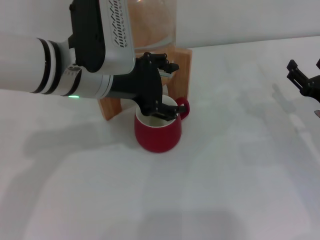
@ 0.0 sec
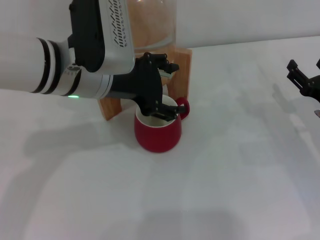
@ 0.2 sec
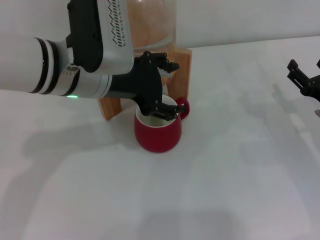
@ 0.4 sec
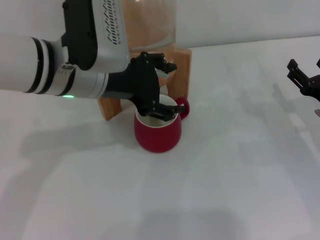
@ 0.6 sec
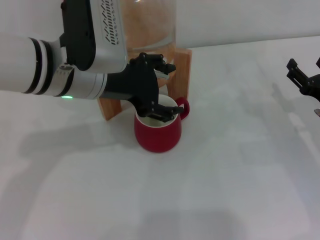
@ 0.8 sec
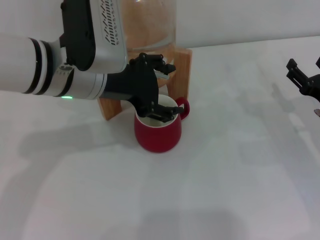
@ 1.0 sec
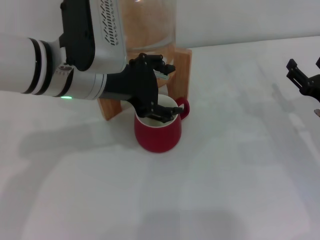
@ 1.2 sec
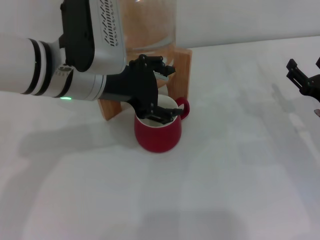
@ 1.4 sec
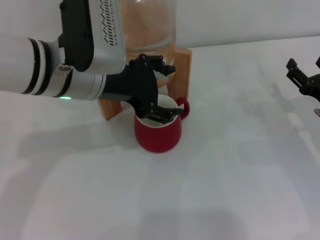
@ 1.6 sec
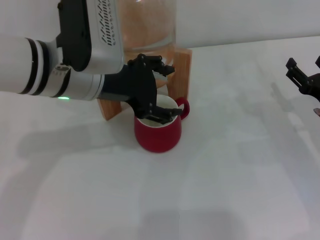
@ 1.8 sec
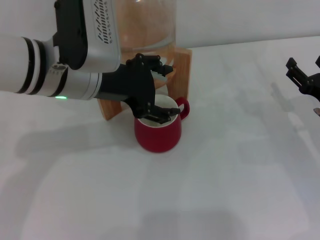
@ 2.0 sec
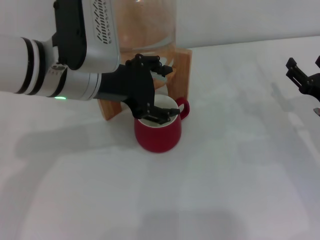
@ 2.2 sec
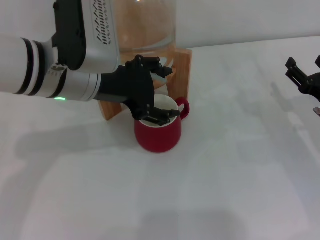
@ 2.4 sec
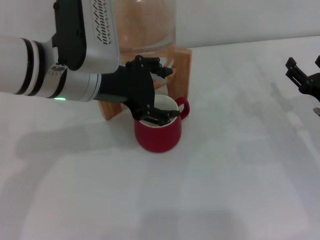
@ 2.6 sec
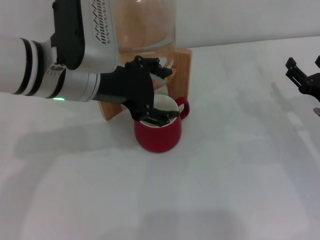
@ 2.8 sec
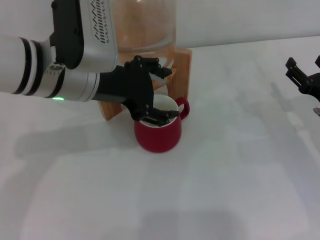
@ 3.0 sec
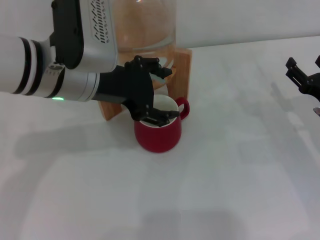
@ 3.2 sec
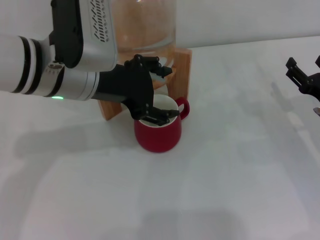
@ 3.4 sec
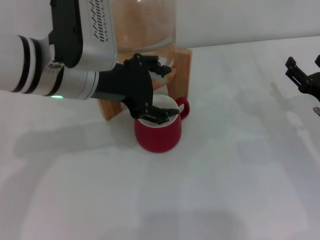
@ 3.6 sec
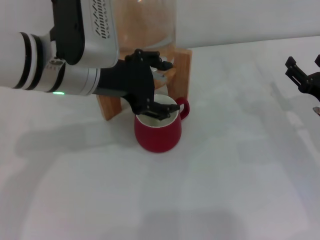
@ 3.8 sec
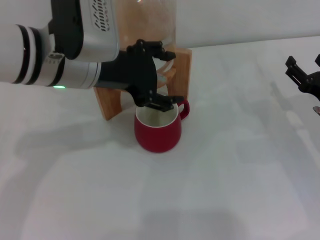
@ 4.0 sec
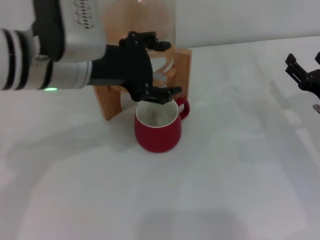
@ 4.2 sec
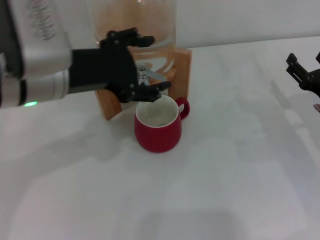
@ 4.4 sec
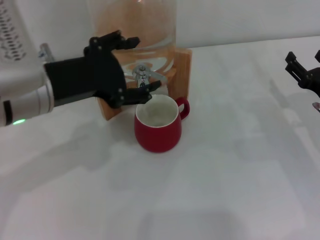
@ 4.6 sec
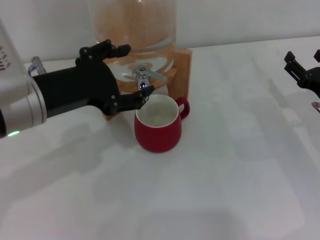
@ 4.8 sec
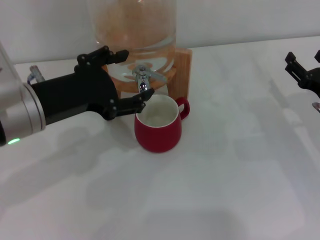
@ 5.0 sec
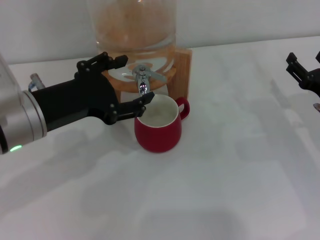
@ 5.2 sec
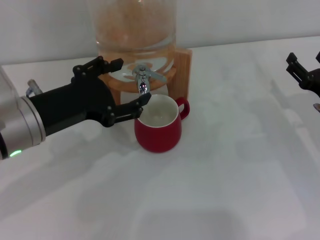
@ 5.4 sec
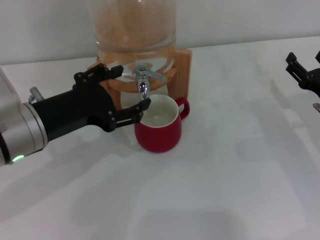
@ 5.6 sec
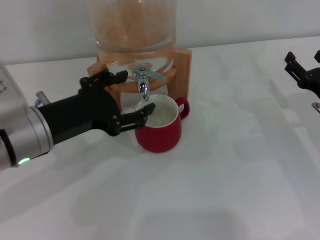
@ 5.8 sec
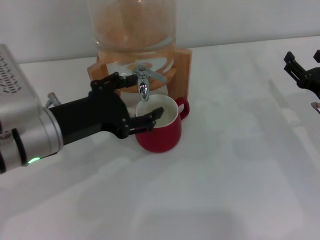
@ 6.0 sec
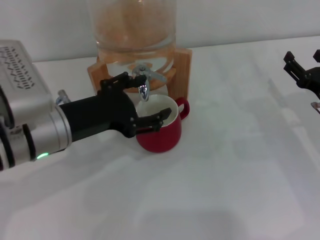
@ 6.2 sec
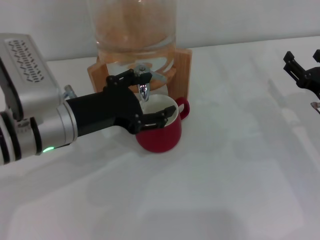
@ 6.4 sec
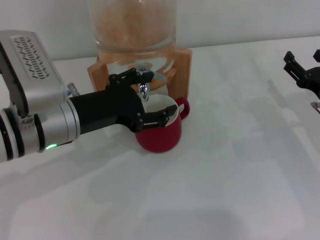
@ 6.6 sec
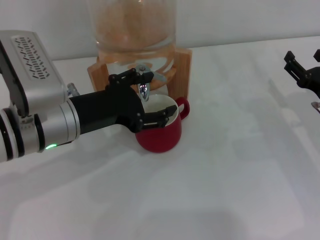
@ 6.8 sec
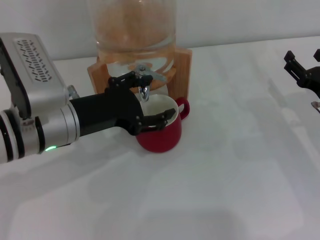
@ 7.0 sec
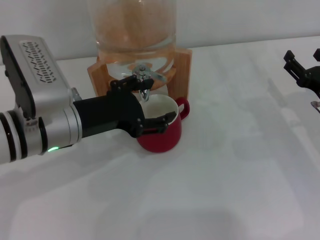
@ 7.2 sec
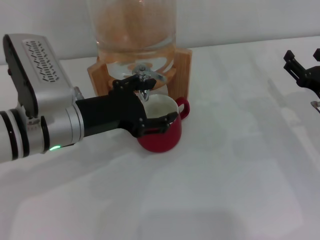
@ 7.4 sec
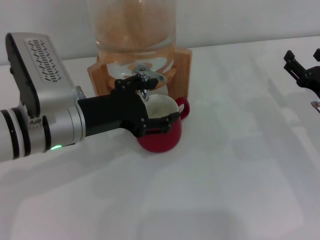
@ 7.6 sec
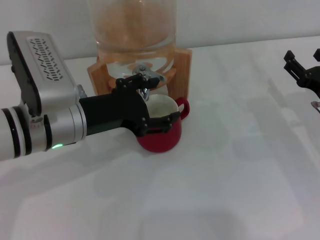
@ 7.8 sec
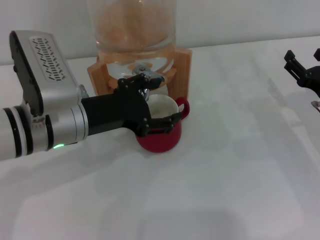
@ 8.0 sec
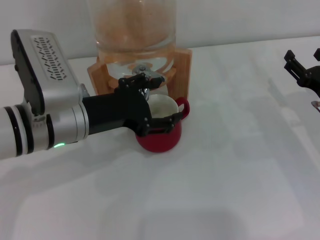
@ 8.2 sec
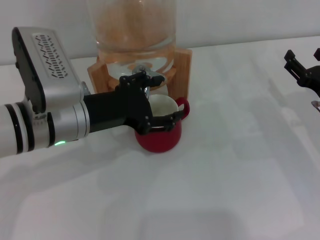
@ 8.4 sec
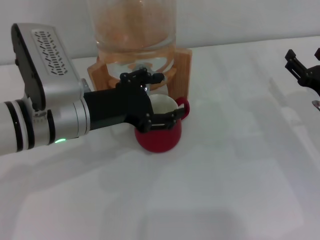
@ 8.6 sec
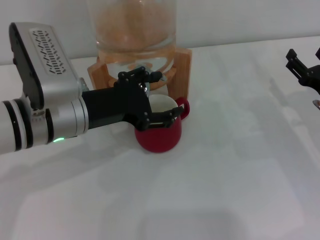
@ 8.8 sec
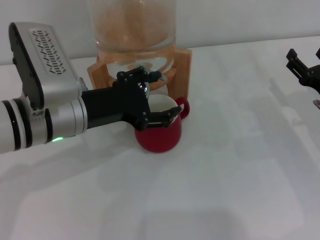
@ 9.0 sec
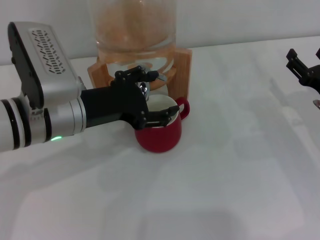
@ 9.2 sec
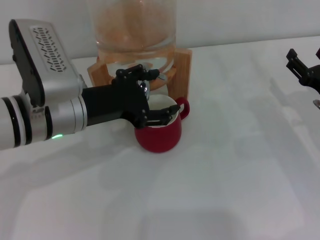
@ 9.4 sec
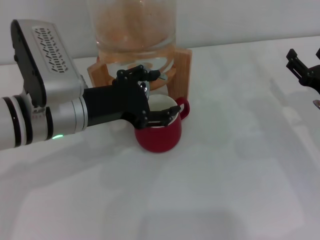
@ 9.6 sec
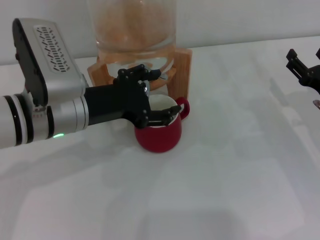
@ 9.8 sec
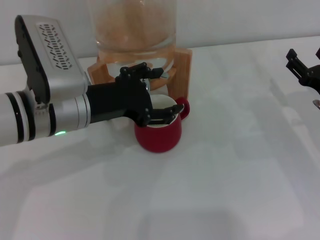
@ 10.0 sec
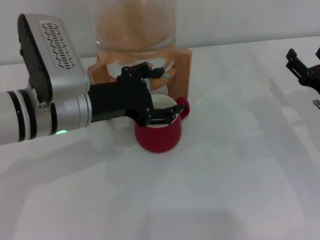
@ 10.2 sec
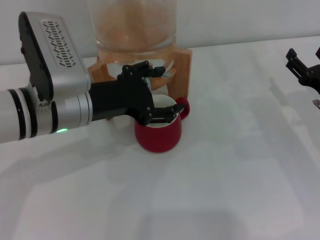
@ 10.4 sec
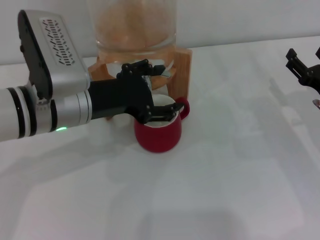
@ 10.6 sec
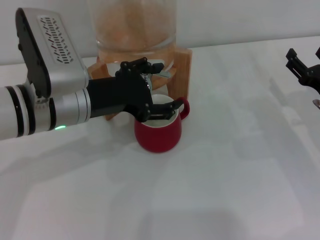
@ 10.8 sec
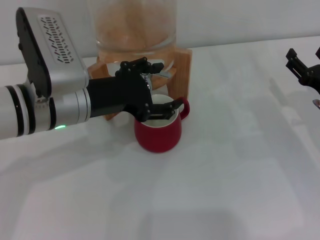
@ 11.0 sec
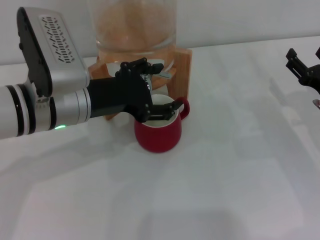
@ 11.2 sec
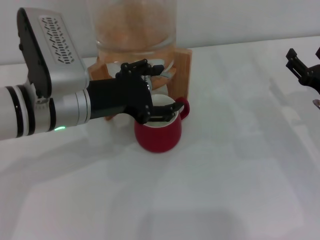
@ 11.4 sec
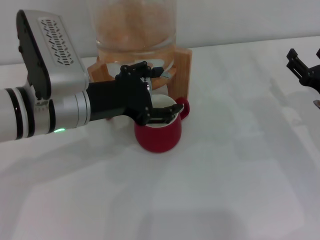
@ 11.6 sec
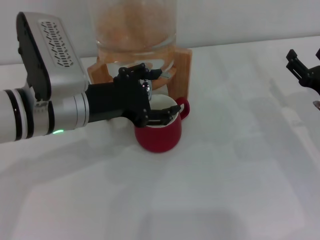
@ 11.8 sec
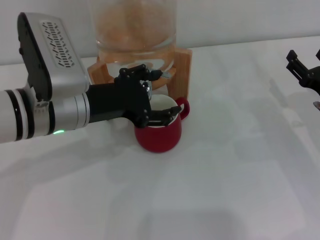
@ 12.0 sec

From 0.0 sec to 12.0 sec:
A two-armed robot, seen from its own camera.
Task of the whole recording: the right gripper pick up the red cup and place it horizontally under the faucet, the left gripper turn on the faucet to fill the cup, and then turn off the faucet.
Step, from 0.0 sec to 3.8 sec: Open the dispenser valve and fill the cup with water with the left gripper.
From 0.0 sec to 1.6 sec: Neither gripper changes place.
From 1.6 sec to 3.0 sec: The two grippers keep their place.
From 3.0 sec to 4.4 sec: The grippers move only a little.
From 4.4 sec to 6.0 sec: The left gripper is displaced downward by some 5 cm.
From 6.0 sec to 7.6 sec: The grippers move only a little.
From 7.6 sec to 9.0 sec: Both grippers stay put.
From 9.0 sec to 10.4 sec: Both grippers stay put.
From 10.4 sec to 12.0 sec: The two grippers keep their place.

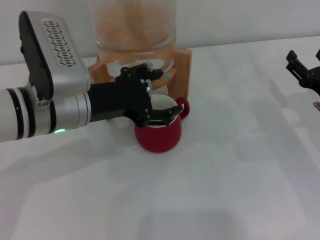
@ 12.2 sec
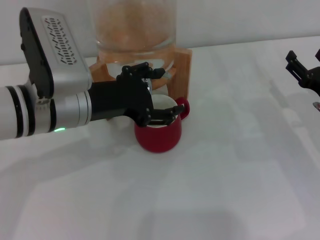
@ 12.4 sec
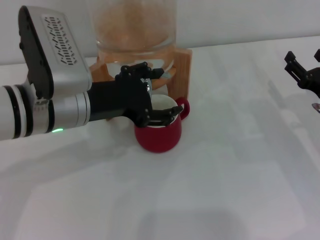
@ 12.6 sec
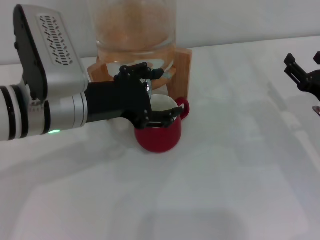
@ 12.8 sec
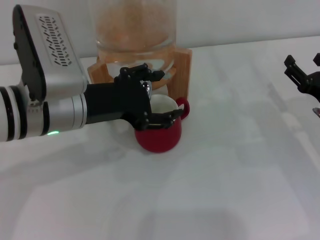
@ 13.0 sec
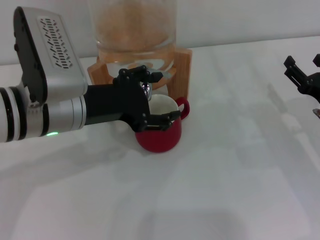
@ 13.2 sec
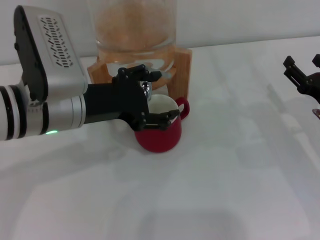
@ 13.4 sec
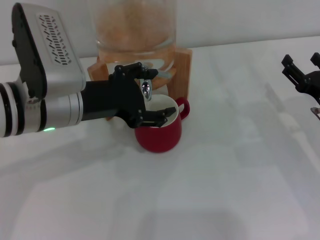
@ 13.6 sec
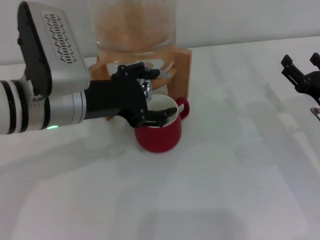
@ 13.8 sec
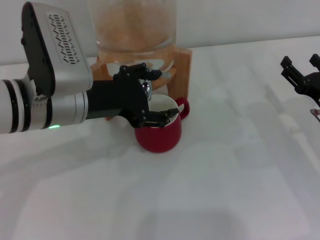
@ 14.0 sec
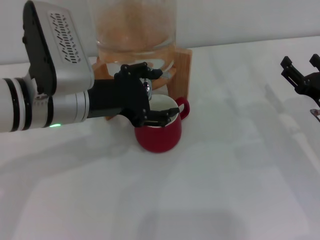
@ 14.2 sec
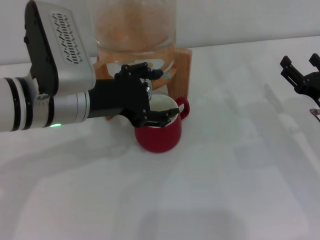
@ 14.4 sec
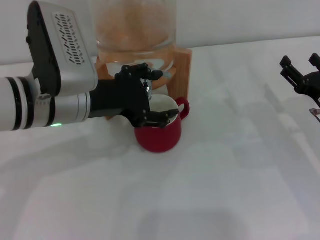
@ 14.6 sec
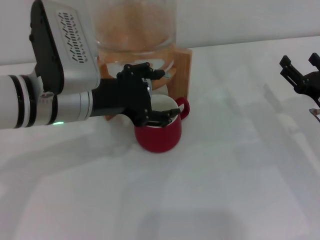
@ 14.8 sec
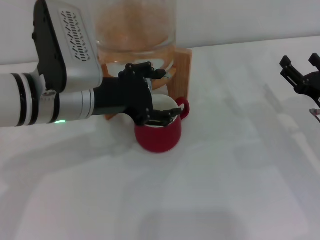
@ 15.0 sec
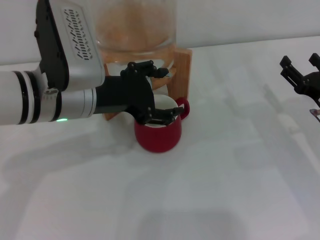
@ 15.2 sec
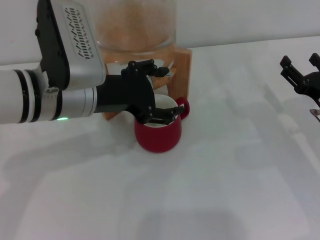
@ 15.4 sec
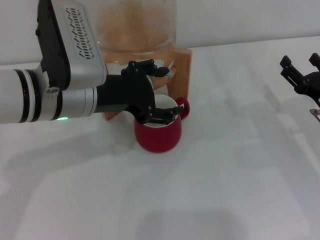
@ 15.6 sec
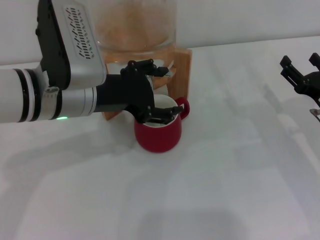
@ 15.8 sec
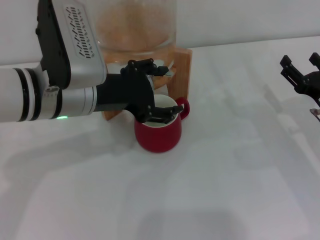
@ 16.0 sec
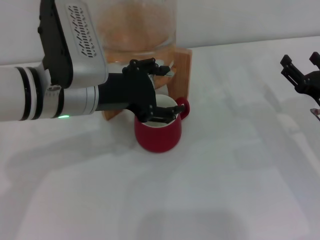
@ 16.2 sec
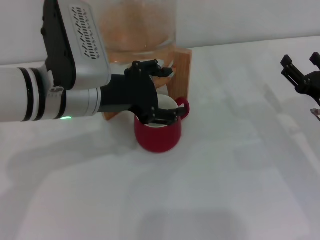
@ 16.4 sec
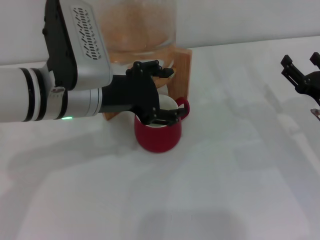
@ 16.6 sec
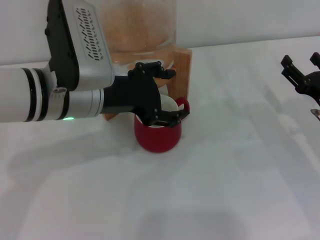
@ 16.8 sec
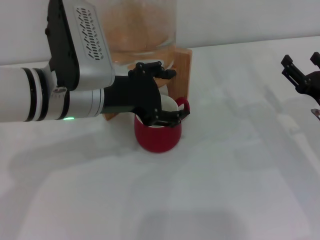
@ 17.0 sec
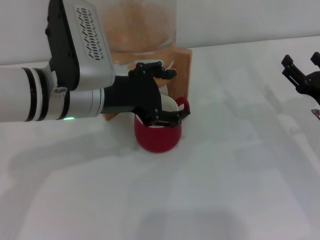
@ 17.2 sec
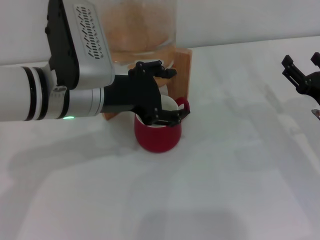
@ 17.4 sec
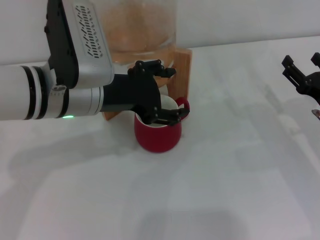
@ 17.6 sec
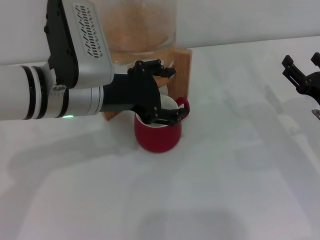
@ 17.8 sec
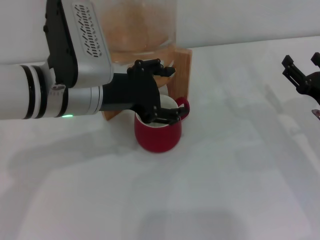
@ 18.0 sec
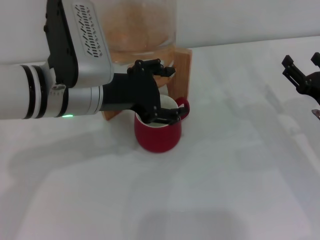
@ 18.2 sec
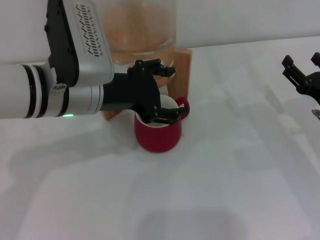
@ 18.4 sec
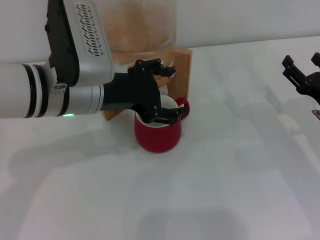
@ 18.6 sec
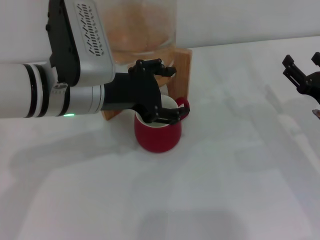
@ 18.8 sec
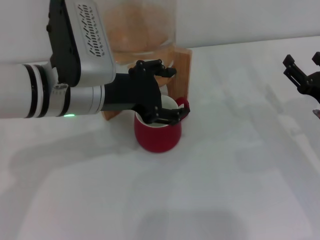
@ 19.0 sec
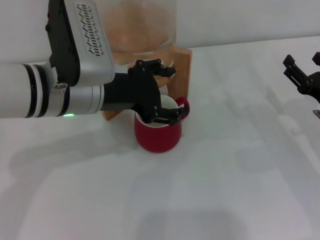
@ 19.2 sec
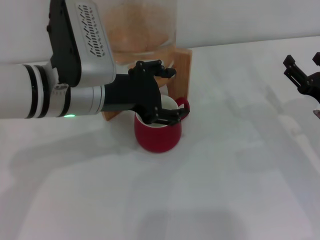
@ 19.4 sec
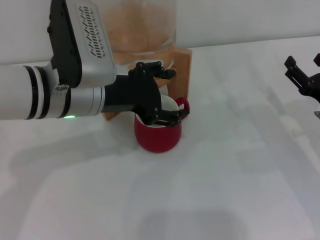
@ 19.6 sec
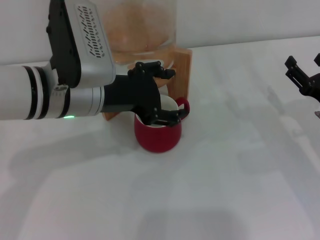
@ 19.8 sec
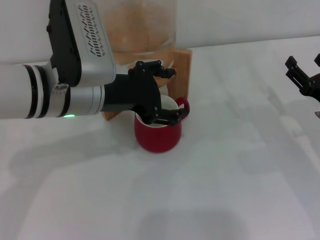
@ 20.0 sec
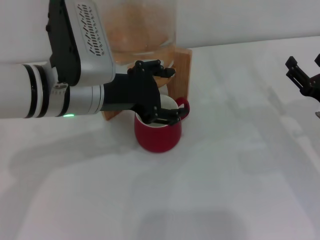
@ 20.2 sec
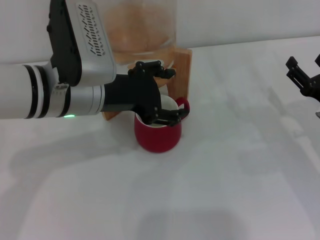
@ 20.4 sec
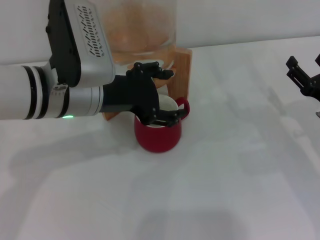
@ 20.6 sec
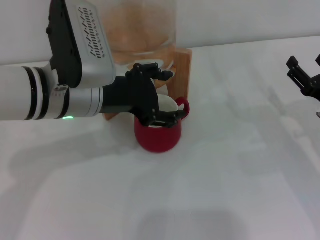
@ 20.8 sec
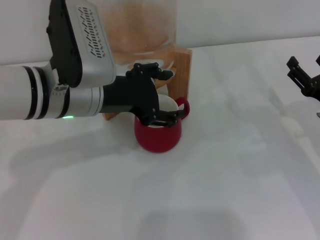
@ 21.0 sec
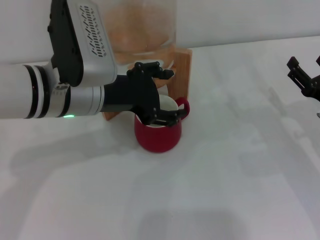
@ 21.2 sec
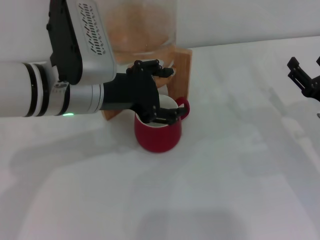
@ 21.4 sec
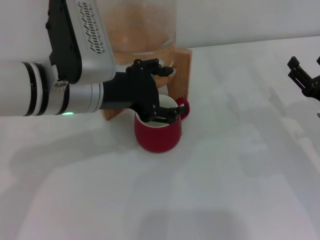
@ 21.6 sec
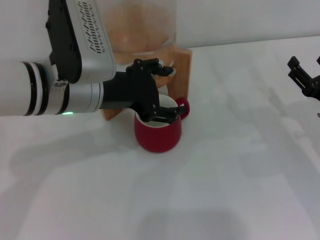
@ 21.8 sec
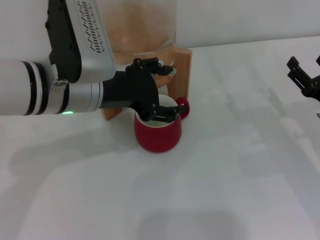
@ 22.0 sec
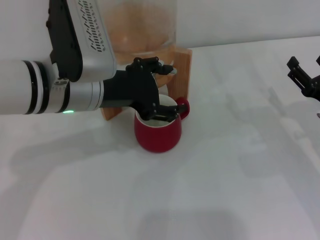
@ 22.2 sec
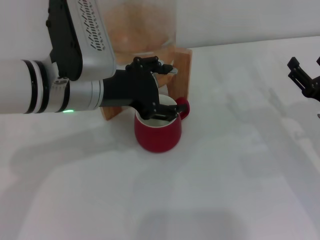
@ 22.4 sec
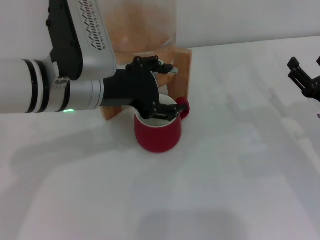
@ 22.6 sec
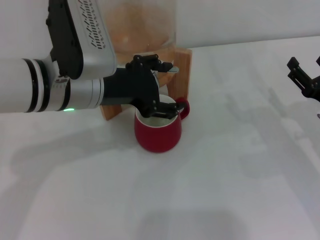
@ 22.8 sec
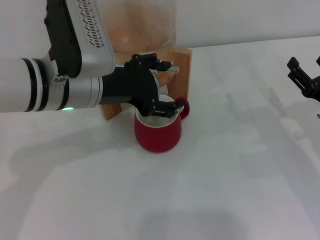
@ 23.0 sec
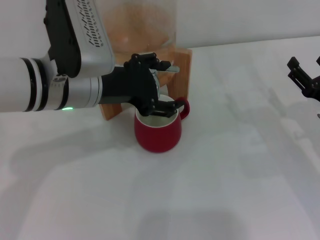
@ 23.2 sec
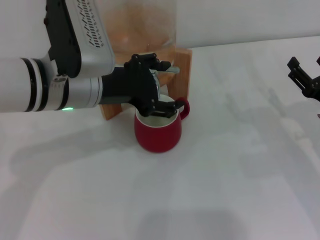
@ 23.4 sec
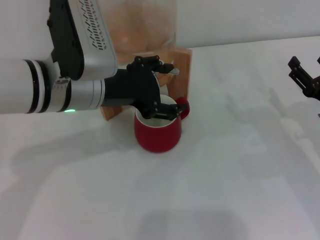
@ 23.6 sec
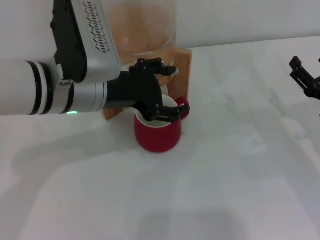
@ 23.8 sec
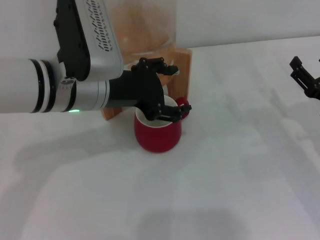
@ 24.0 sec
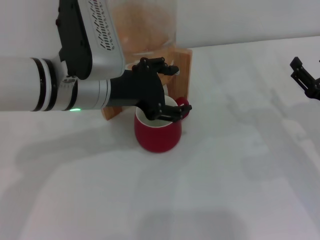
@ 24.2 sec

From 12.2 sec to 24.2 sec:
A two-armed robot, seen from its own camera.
Task of the whole recording: the right gripper pick up the red cup and place it horizontally under the faucet, the left gripper turn on the faucet to fill the cup, and then turn off the faucet.
From 12.2 sec to 15.2 sec: The grippers move only a little.
From 15.2 sec to 21.2 sec: Both grippers stay about where they are.
From 21.2 sec to 24.2 sec: Both grippers stay put.
